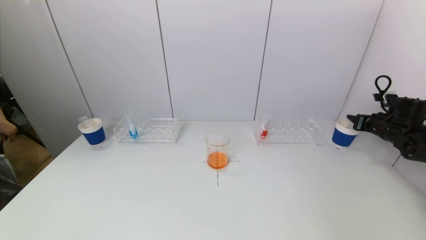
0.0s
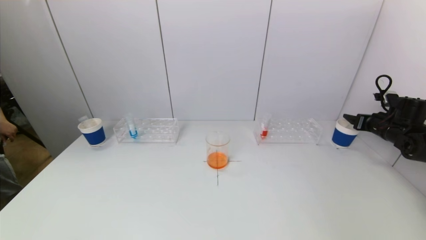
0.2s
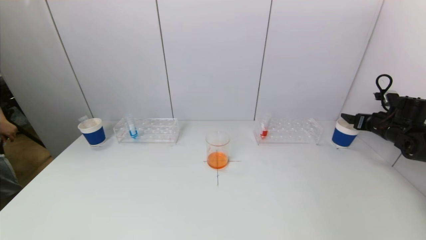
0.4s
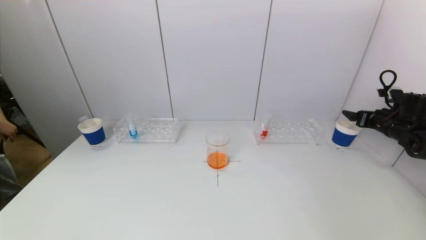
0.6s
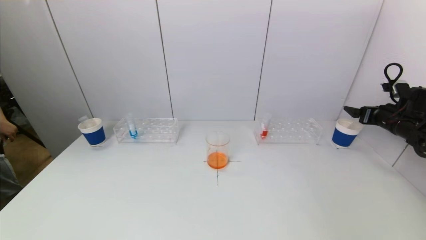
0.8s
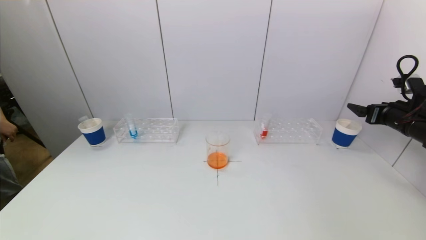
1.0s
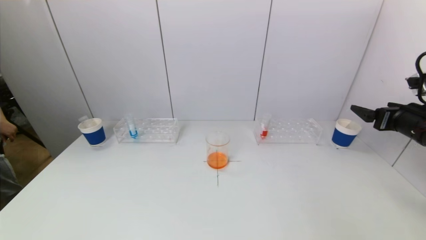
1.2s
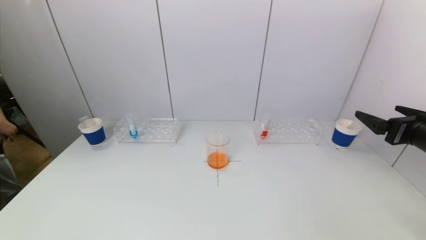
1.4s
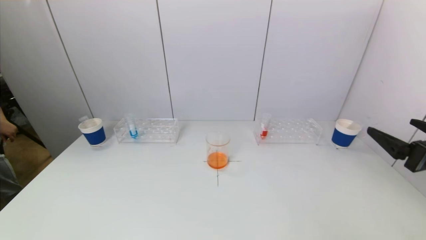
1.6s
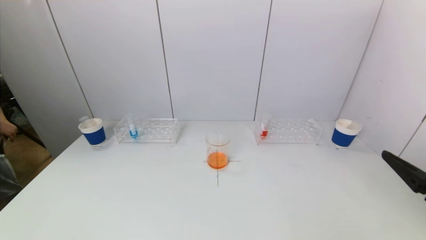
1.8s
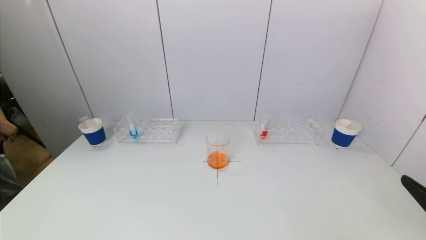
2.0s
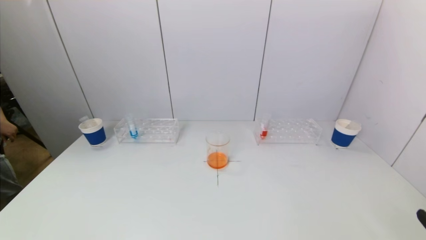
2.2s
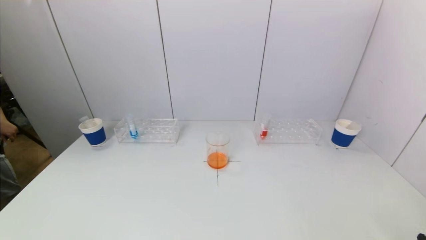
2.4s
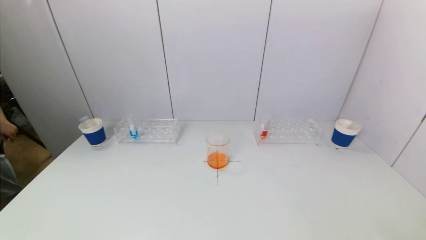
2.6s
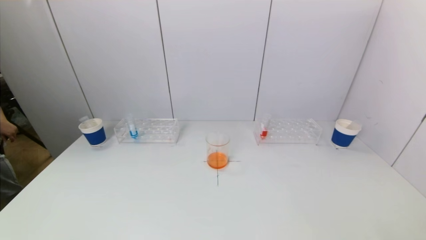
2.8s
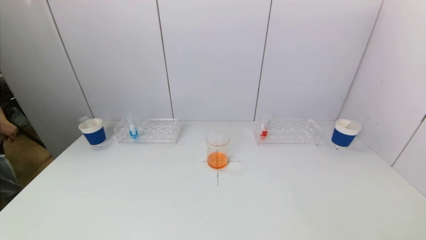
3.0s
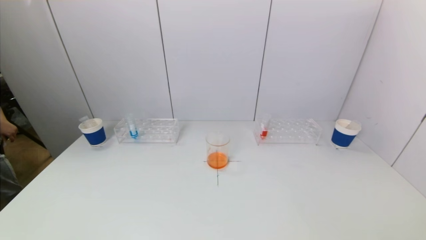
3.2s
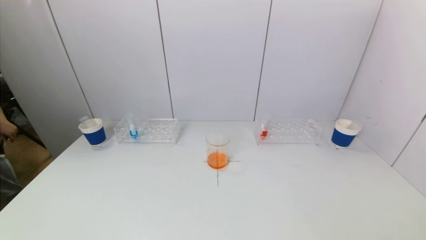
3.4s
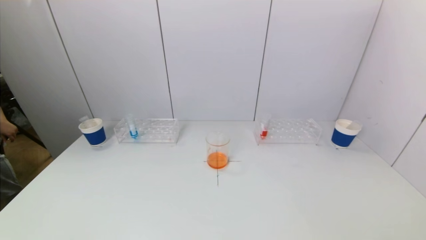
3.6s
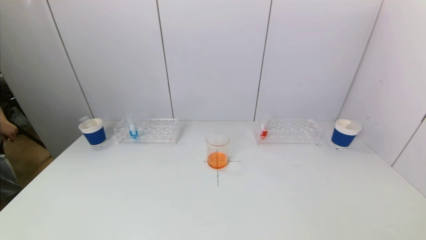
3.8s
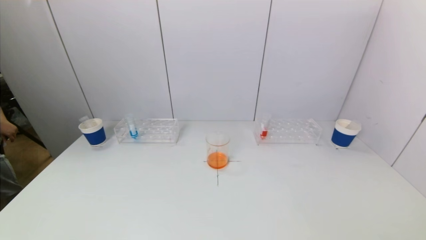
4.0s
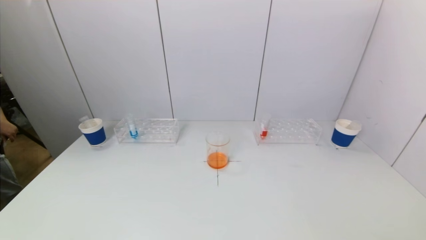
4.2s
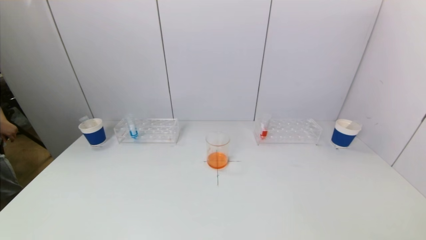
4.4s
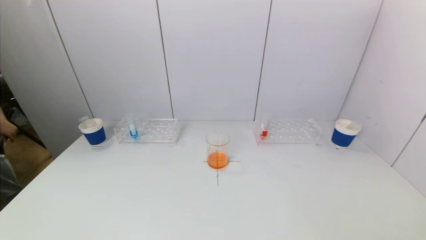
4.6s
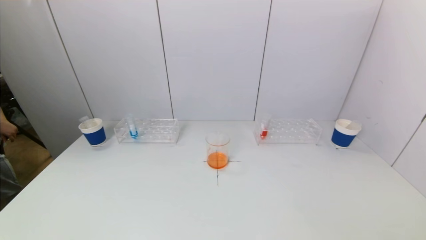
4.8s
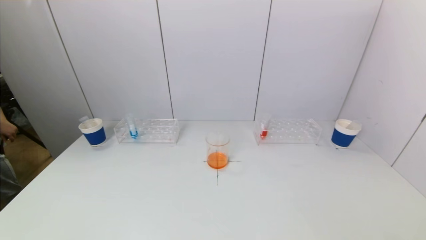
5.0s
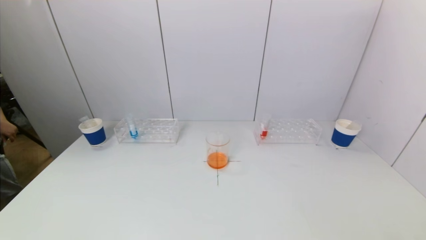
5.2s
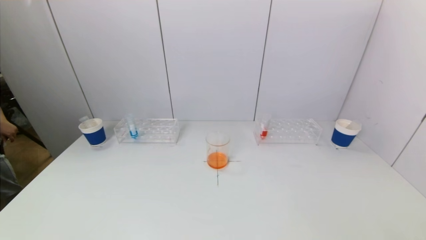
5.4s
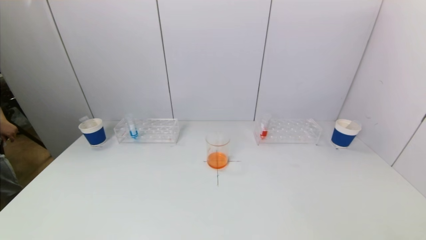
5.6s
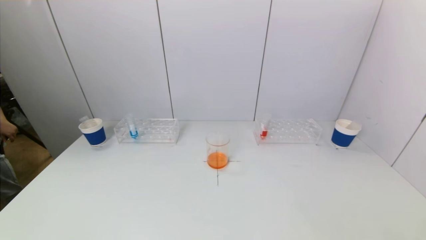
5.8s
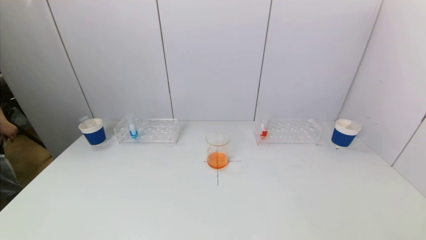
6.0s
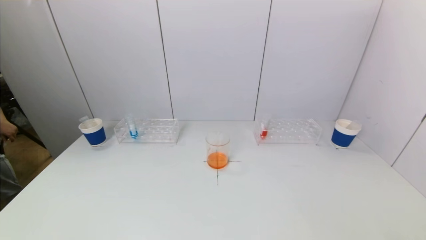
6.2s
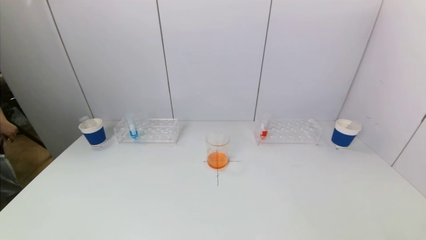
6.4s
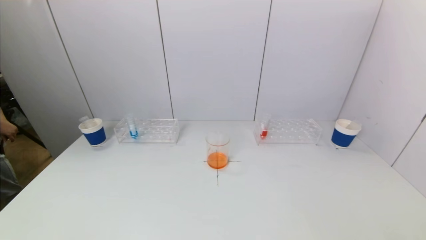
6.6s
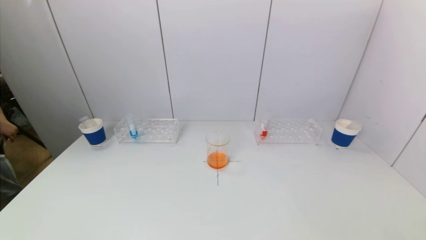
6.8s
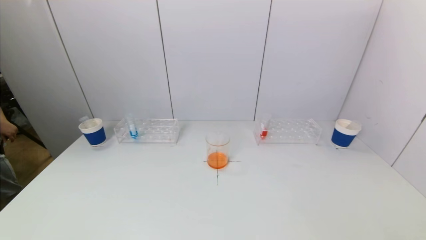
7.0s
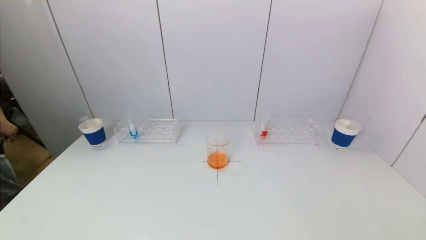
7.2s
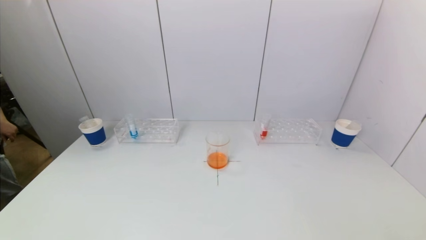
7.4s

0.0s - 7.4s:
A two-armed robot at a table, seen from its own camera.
Task of the whole recording: pick up a test tube with pigment on left test tube rack and a test tube with pigment on right test tube rack by grippers and pour them into the beaker.
0.0s - 1.4s: The right gripper goes about 25 cm backward, to the left and upward, and opens up.
1.4s - 3.0s: The right gripper moves backward and downward, roughly 25 cm.
3.0s - 4.4s: The two grippers keep their place.
6.0s - 7.4s: Neither gripper changes place.
